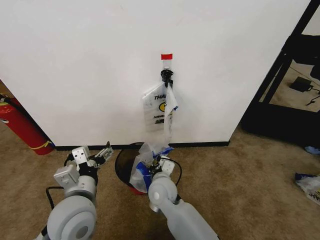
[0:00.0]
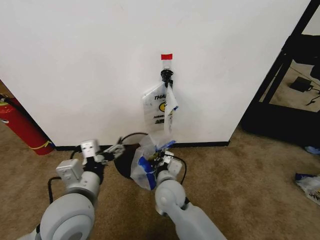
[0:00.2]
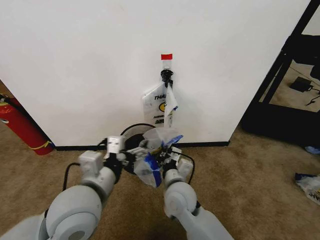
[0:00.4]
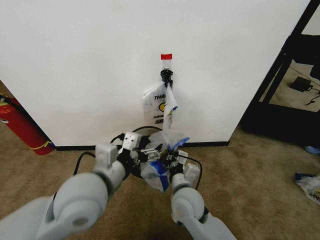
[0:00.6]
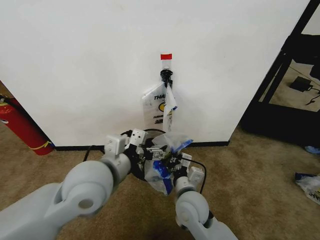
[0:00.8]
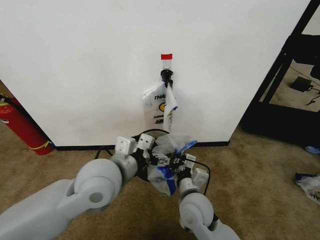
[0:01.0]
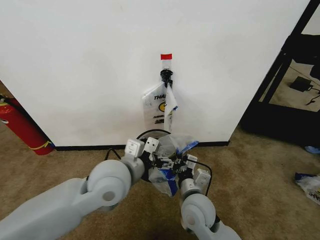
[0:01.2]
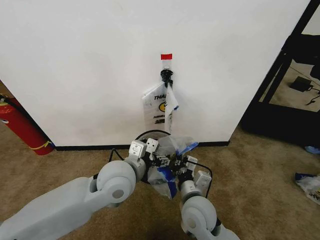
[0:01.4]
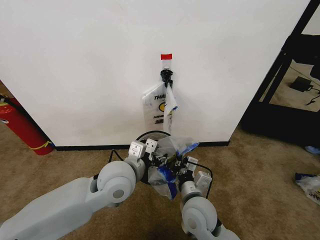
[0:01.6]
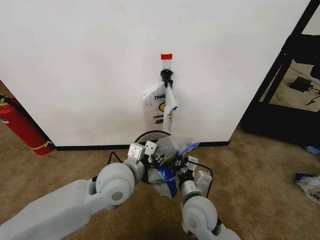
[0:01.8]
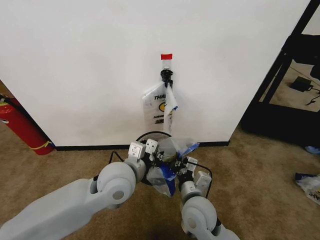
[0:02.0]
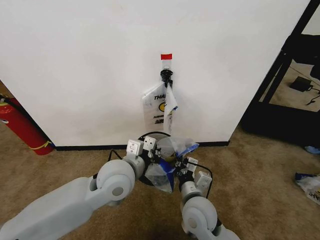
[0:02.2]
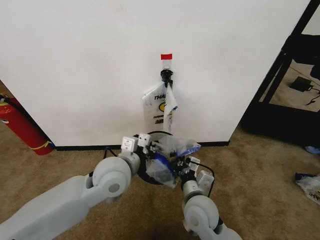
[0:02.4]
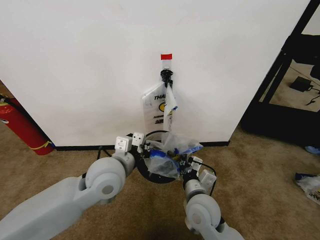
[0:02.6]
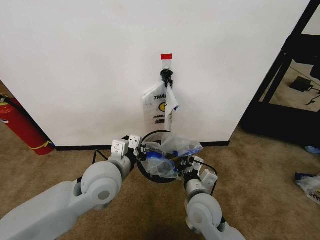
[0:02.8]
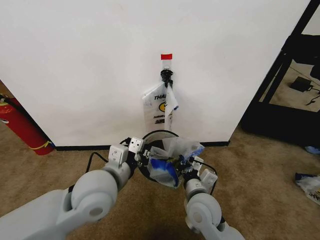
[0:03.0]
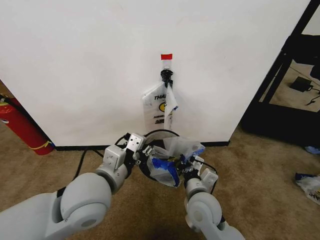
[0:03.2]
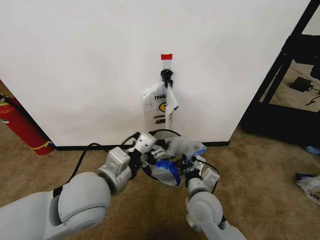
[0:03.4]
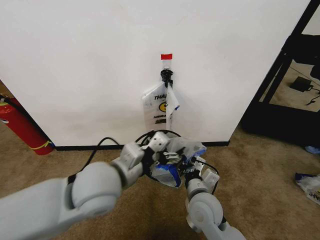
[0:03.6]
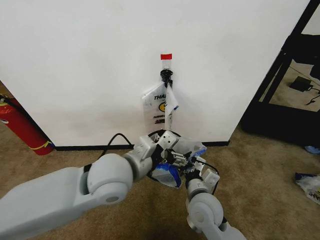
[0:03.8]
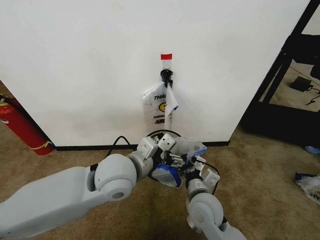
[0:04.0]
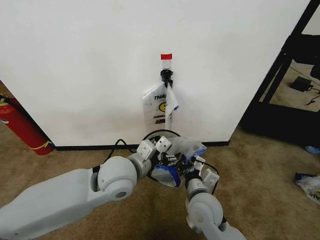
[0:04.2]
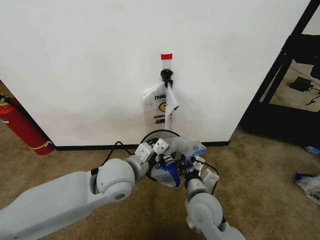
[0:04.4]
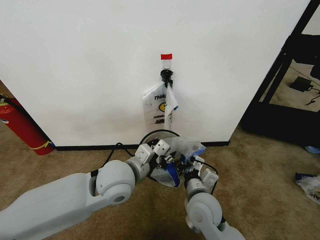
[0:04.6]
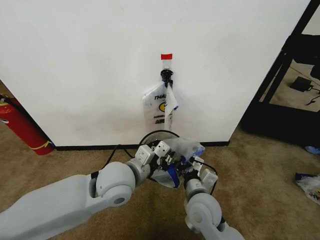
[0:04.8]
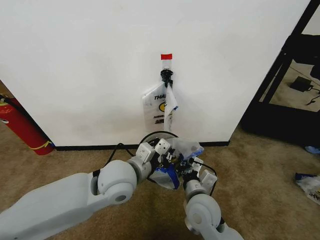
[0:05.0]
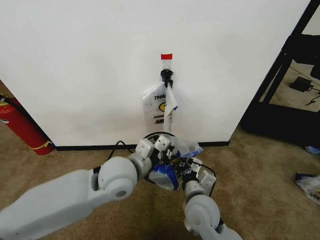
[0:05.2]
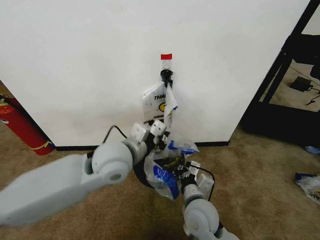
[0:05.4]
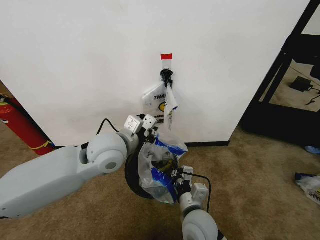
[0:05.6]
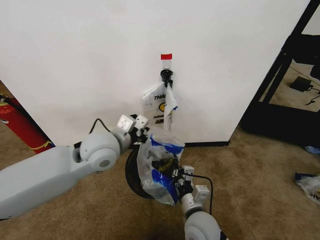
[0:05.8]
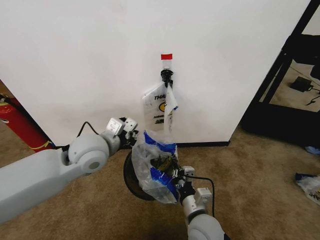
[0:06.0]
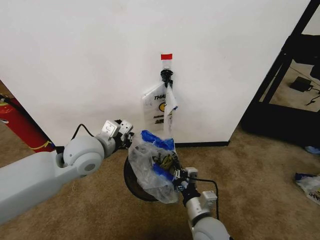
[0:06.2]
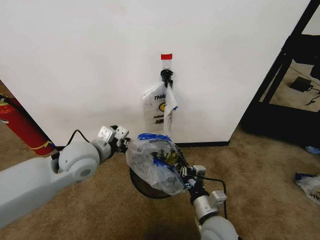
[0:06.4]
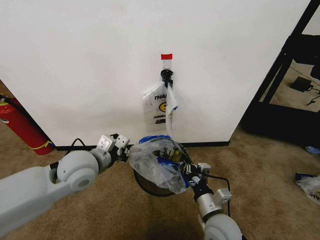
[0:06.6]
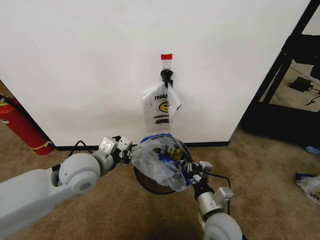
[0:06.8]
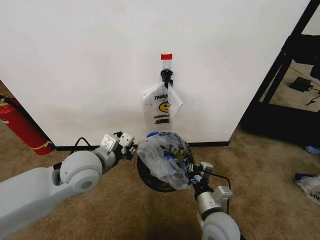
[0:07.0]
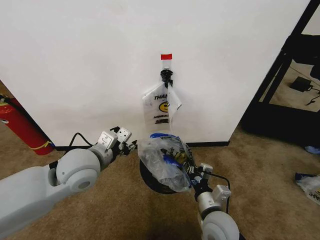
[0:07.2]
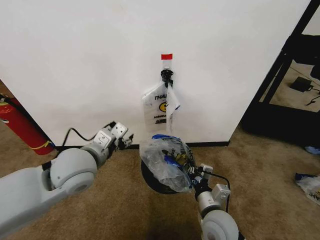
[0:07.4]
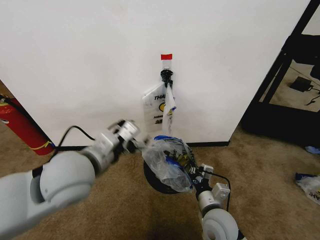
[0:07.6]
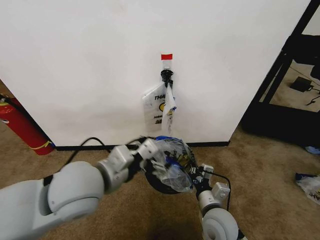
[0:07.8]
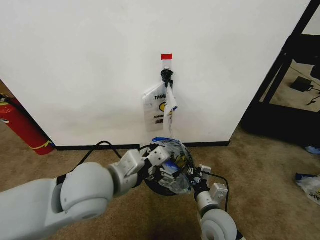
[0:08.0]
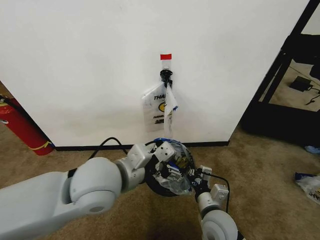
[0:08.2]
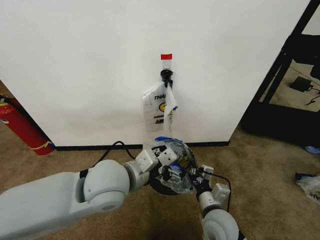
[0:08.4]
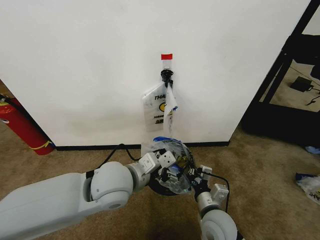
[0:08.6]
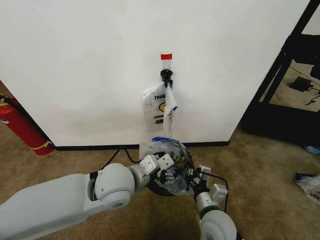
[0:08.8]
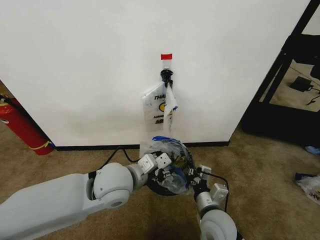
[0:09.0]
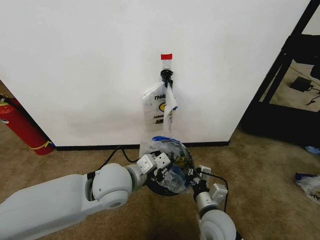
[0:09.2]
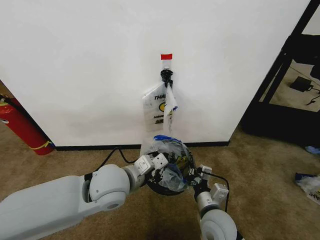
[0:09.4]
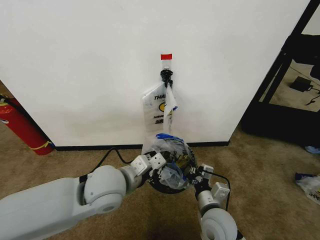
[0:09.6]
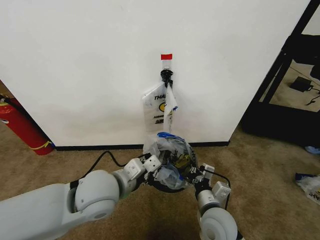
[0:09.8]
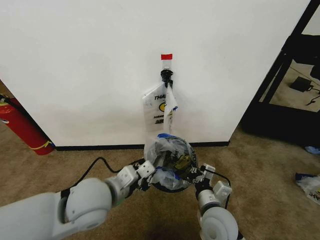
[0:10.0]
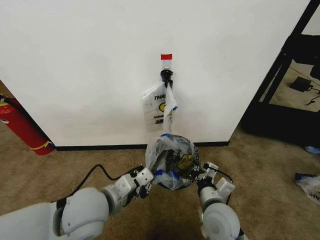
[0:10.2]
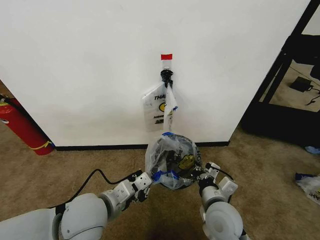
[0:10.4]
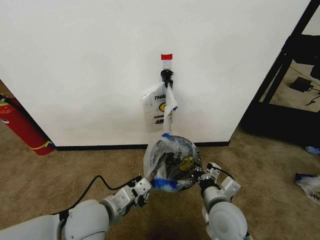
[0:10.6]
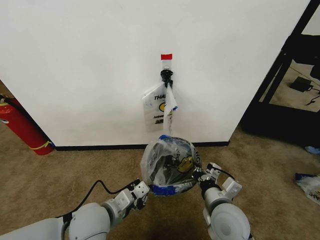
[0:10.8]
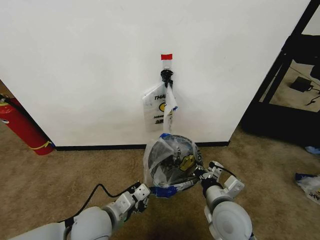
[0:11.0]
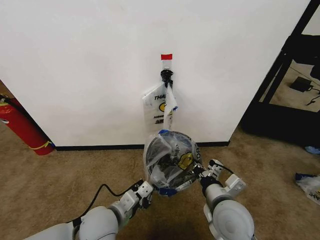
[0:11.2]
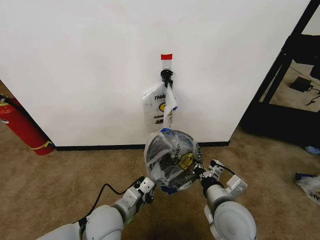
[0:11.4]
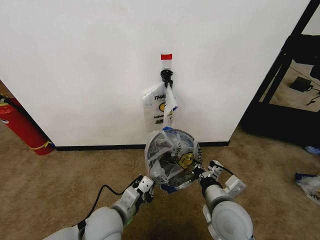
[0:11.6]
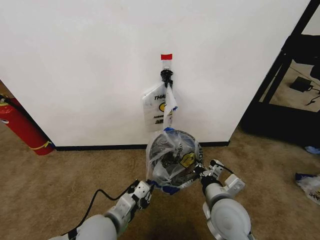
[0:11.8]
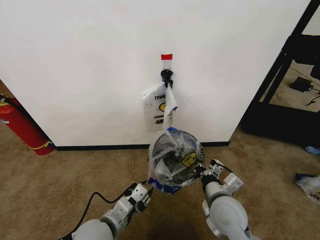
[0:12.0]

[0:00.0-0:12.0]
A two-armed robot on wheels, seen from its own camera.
Task of the whole recording: Pick up the garbage bag from the wall and place it over the trash bin.
0:00.0 to 0:01.6: The right gripper goes about 15 cm to the right and backward, while the left gripper heads to the right and forward, covering some 10 cm, and closes up.
0:01.6 to 0:03.0: The left gripper shifts by roughly 5 cm, and closes its fingers.
0:03.0 to 0:04.4: The left gripper changes place by some 5 cm, and opens and closes again.
0:04.4 to 0:06.0: The left gripper moves upward, forward and to the left, approximately 10 cm, and closes up, while the right gripper changes place by approximately 5 cm.
0:06.0 to 0:07.6: The right gripper shifts roughly 5 cm to the right, while the left gripper heads backward, covering about 10 cm, and opens up.
0:07.6 to 0:09.0: The left gripper heads downward and to the right, covering some 10 cm, and closes its fingers.
0:09.0 to 0:10.4: The left gripper moves backward and to the left, about 10 cm, and closes.
0:10.4 to 0:12.0: The left gripper goes some 5 cm downward, and opens its fingers.

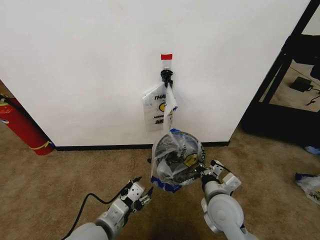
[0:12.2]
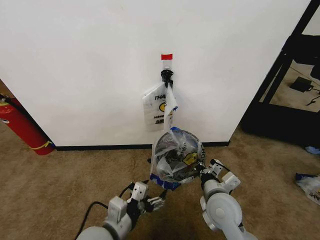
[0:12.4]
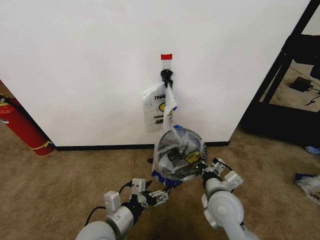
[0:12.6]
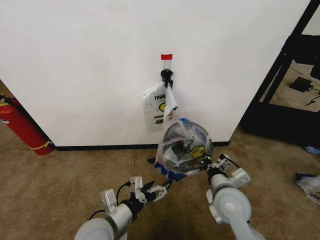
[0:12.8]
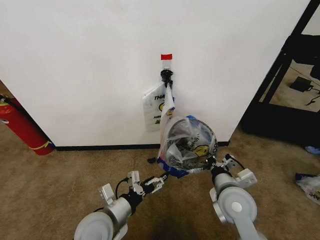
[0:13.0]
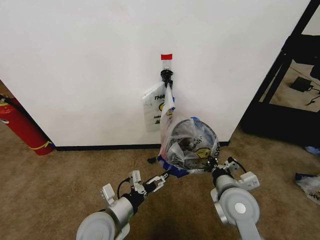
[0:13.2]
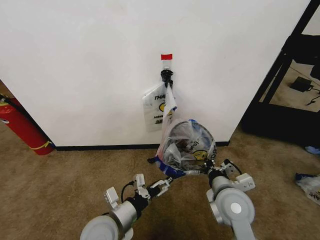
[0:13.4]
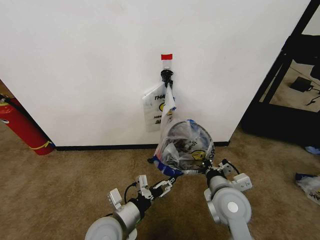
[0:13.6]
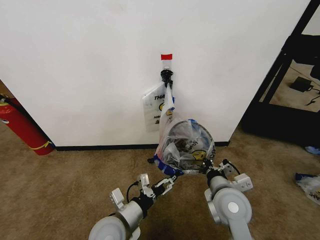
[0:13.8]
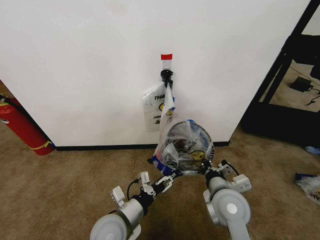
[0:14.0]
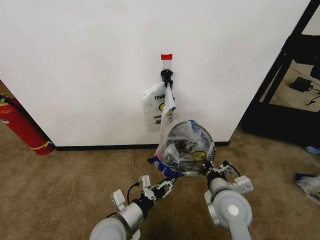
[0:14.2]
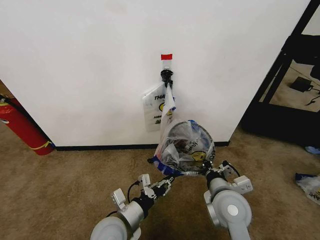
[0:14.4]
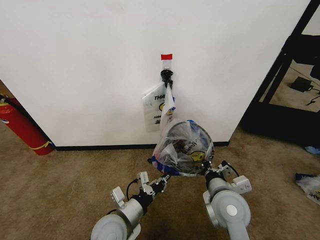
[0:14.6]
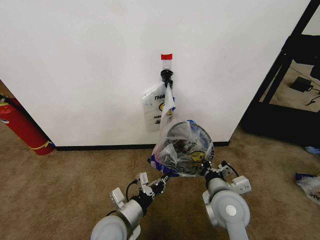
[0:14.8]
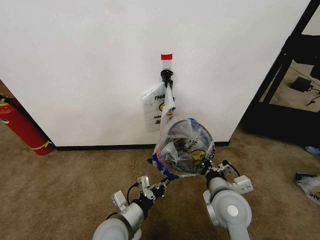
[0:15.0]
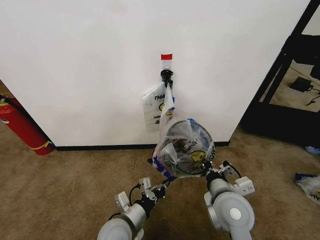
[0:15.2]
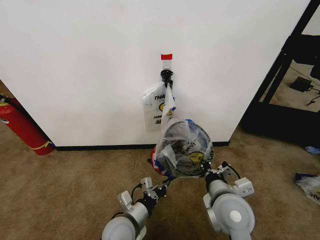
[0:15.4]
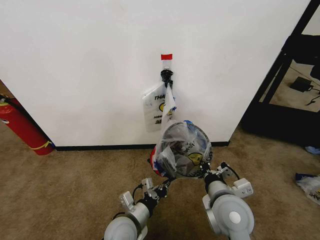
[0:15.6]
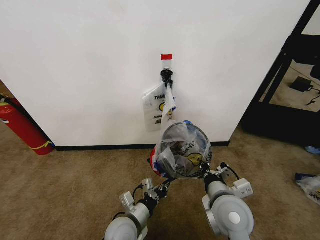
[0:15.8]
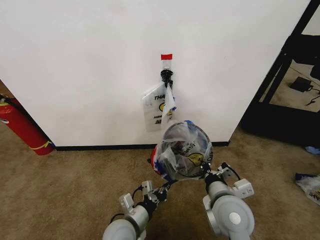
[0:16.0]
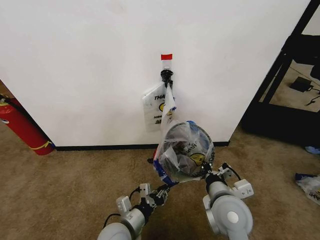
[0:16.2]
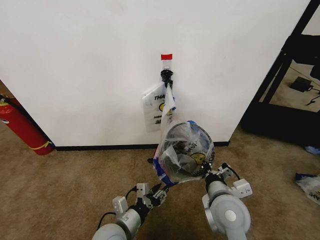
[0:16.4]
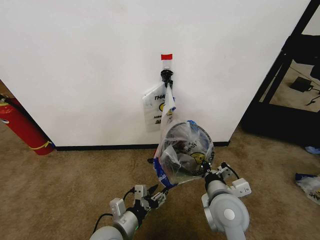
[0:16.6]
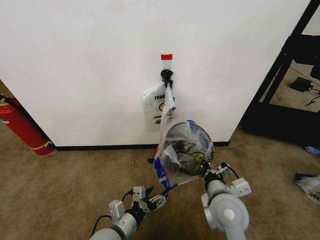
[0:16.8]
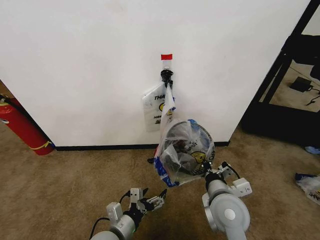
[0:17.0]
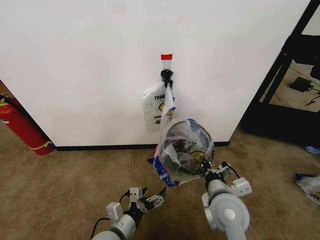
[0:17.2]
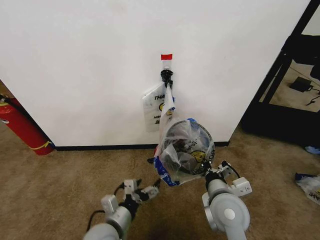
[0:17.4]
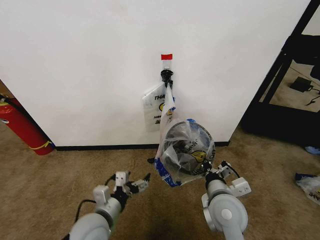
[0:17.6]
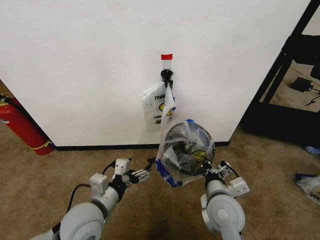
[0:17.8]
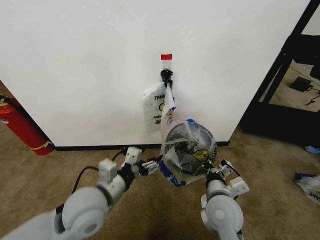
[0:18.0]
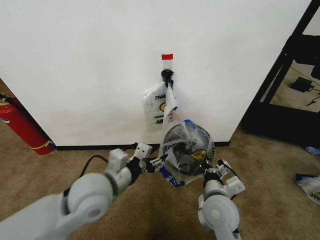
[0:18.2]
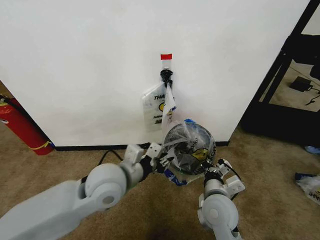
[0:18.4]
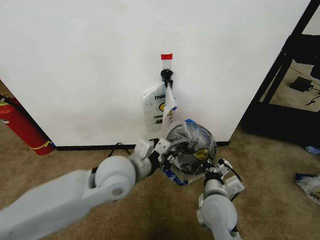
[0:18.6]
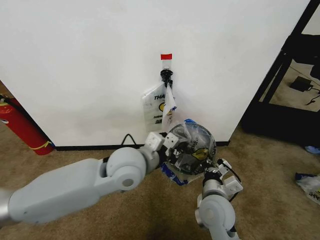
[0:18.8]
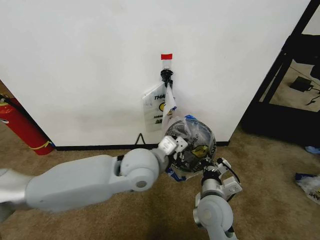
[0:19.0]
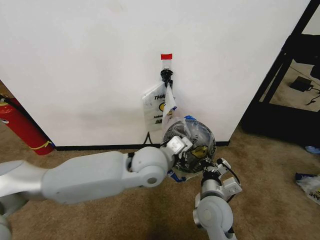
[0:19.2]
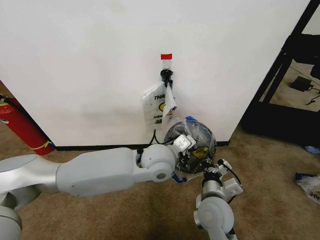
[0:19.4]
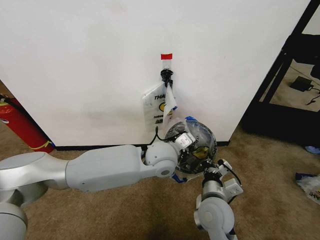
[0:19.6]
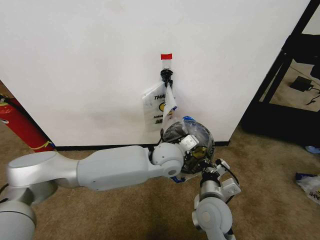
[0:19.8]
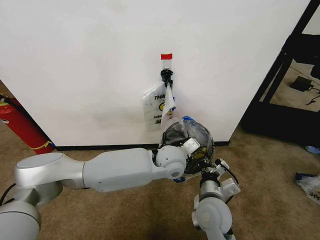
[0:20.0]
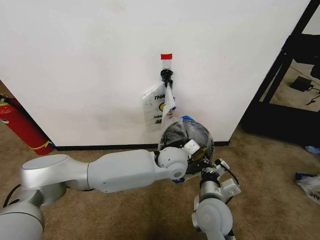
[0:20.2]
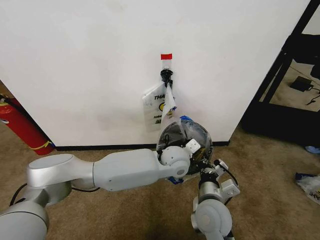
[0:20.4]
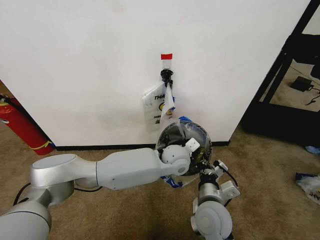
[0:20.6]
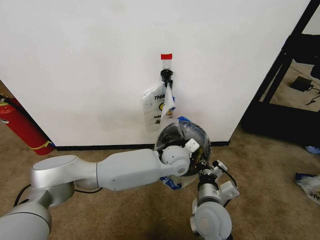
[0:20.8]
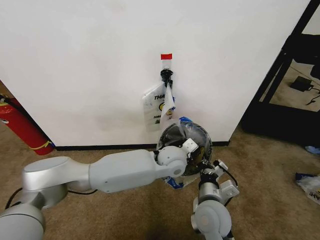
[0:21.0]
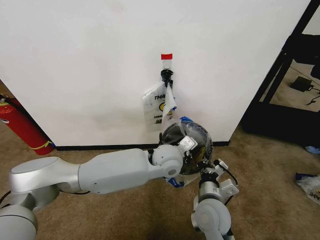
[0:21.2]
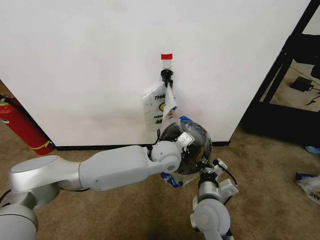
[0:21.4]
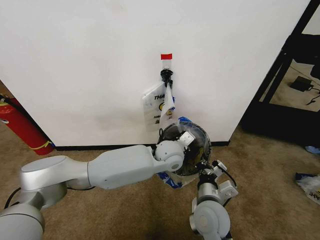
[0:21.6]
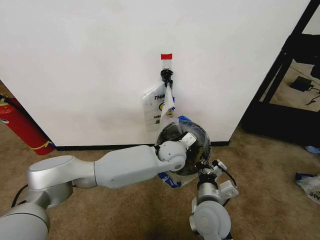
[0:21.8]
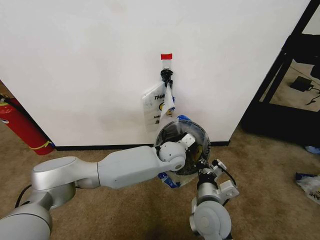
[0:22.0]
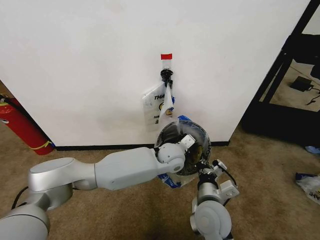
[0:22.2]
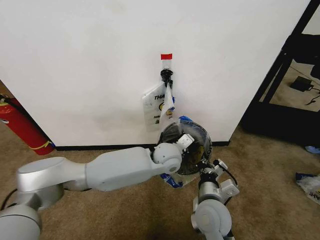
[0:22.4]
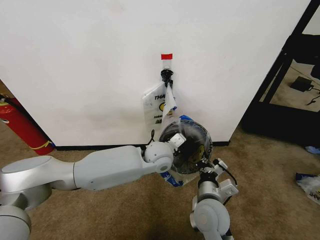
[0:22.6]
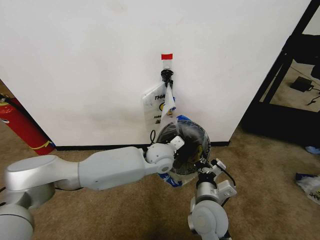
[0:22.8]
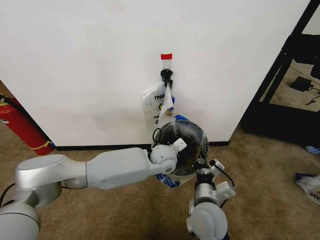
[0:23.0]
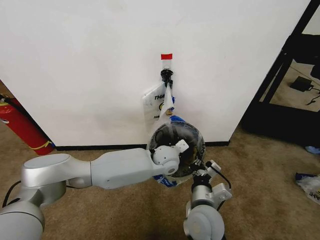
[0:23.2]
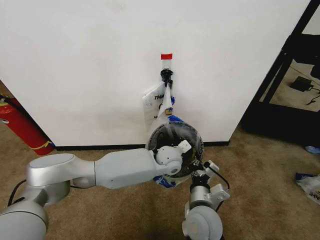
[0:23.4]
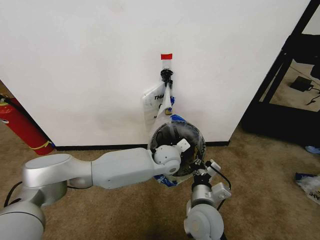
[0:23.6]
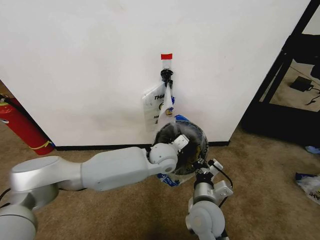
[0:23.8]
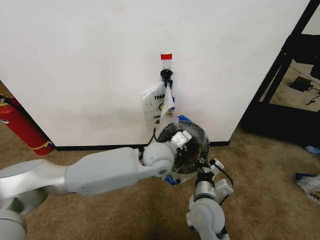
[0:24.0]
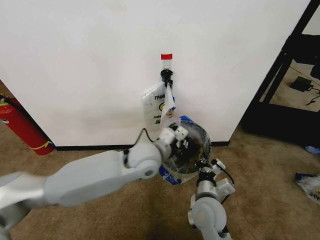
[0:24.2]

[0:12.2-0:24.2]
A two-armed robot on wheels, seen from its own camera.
Task of the whole recording: Pick up the garbage bag from the wall and place it over the trash bin.
0:12.2 to 0:13.8: The left gripper moves roughly 5 cm.
0:13.8 to 0:15.2: The left gripper closes.
0:15.2 to 0:16.6: The left gripper opens up.
0:16.6 to 0:18.2: The left gripper shifts some 20 cm upward and forward, and opens, then closes again.
0:18.2 to 0:19.8: The left gripper goes approximately 25 cm to the right and forward, and closes.
0:19.8 to 0:21.2: The grippers make only small movements.
0:22.6 to 0:24.2: The left gripper is displaced upward by roughly 5 cm.
